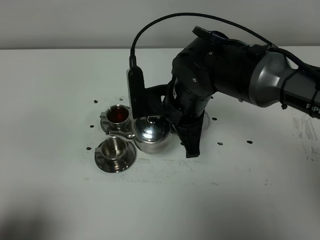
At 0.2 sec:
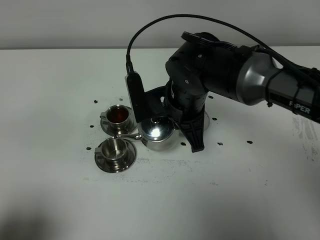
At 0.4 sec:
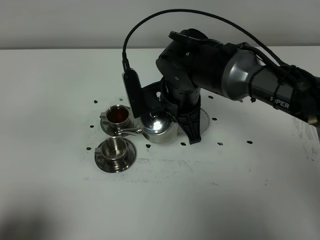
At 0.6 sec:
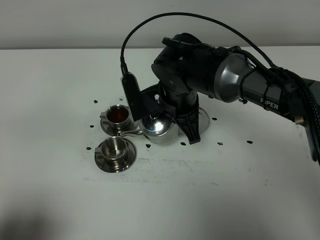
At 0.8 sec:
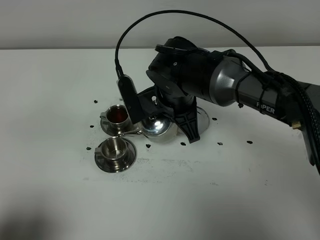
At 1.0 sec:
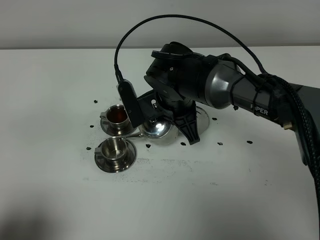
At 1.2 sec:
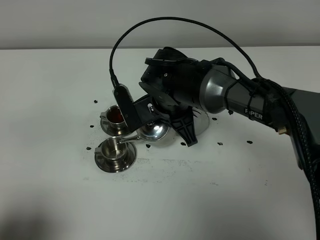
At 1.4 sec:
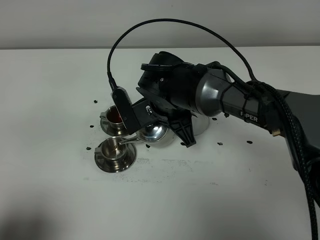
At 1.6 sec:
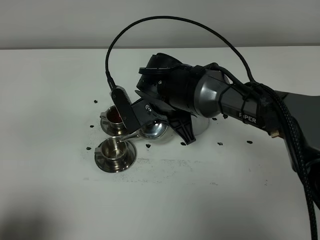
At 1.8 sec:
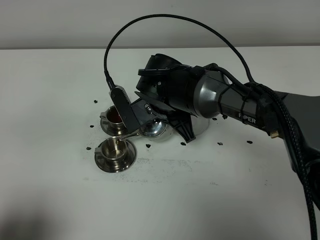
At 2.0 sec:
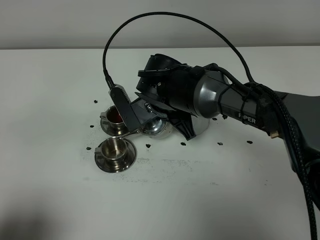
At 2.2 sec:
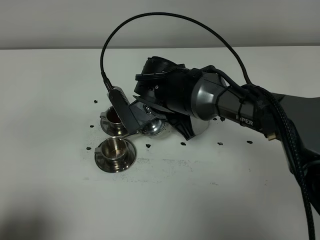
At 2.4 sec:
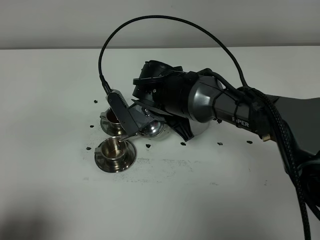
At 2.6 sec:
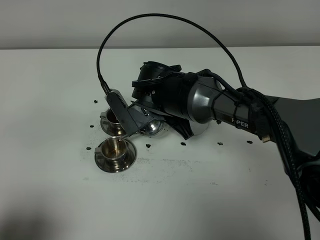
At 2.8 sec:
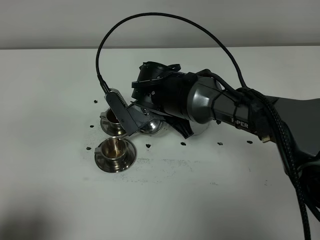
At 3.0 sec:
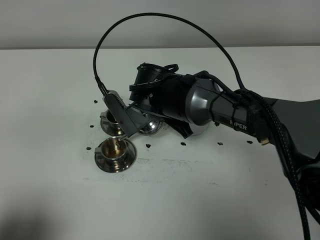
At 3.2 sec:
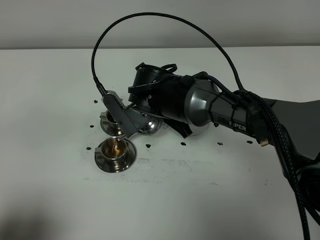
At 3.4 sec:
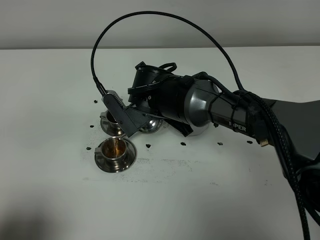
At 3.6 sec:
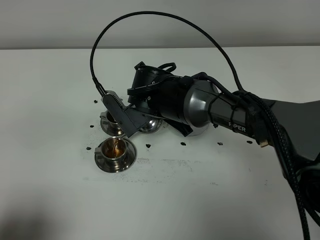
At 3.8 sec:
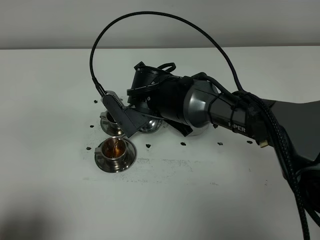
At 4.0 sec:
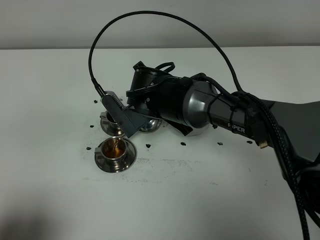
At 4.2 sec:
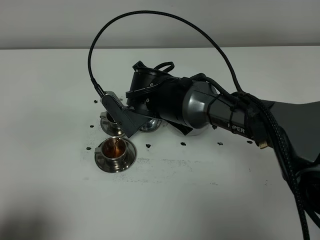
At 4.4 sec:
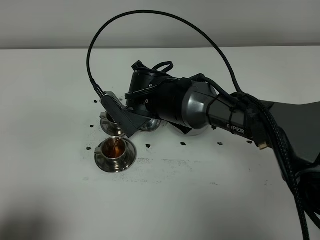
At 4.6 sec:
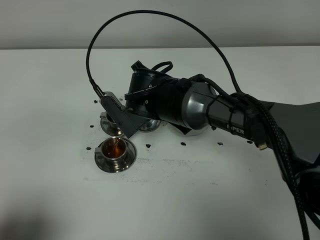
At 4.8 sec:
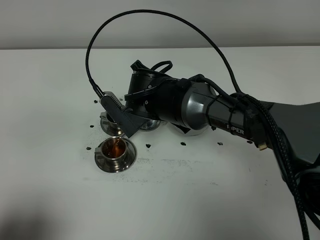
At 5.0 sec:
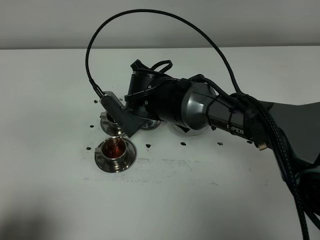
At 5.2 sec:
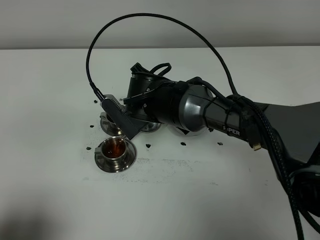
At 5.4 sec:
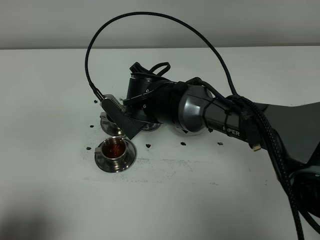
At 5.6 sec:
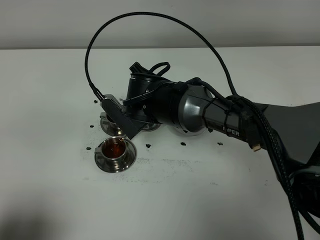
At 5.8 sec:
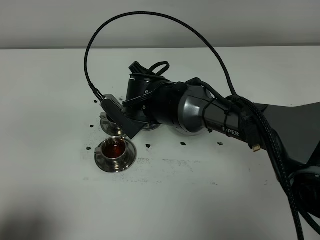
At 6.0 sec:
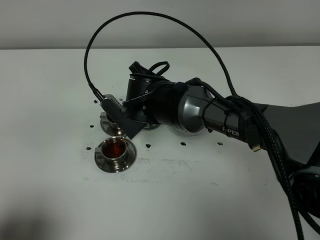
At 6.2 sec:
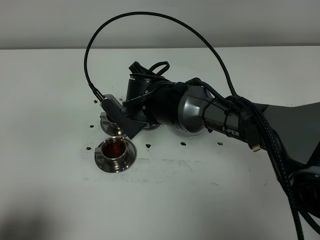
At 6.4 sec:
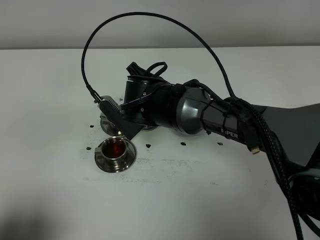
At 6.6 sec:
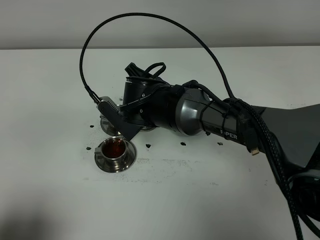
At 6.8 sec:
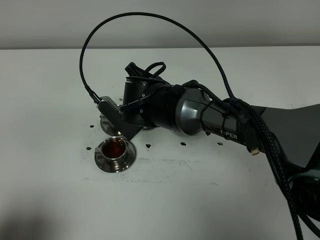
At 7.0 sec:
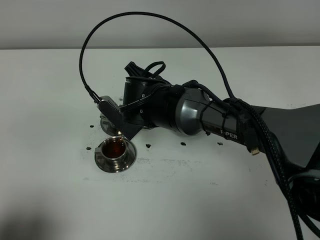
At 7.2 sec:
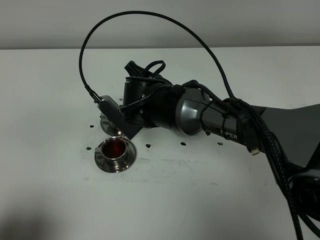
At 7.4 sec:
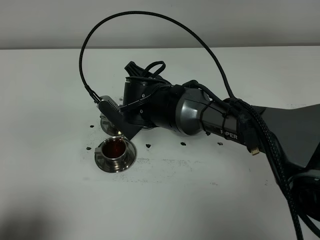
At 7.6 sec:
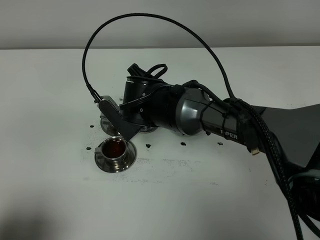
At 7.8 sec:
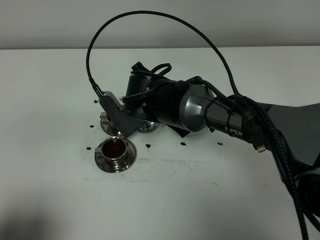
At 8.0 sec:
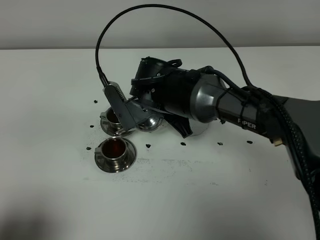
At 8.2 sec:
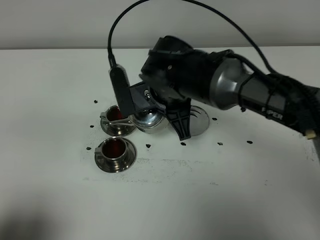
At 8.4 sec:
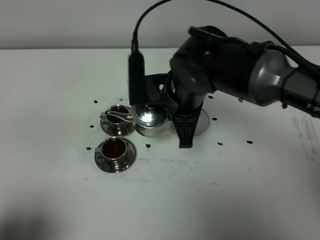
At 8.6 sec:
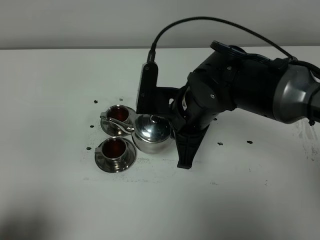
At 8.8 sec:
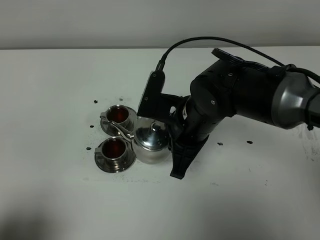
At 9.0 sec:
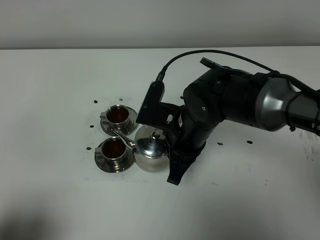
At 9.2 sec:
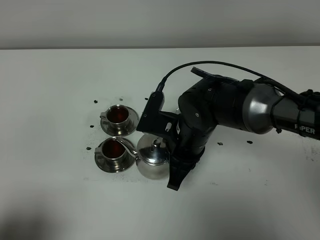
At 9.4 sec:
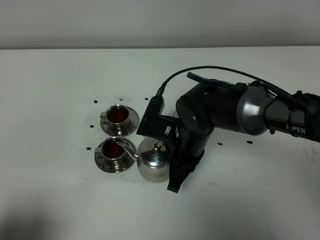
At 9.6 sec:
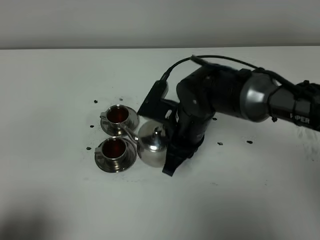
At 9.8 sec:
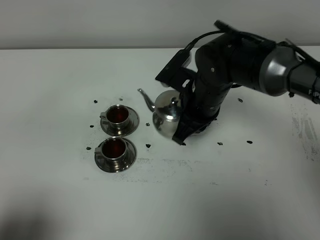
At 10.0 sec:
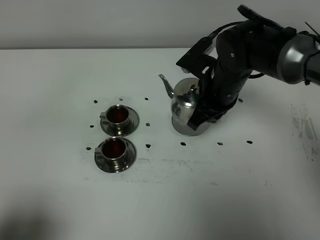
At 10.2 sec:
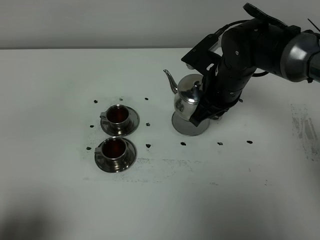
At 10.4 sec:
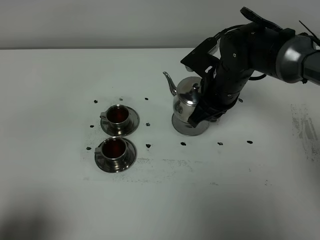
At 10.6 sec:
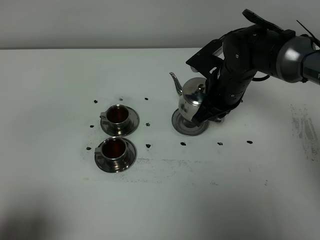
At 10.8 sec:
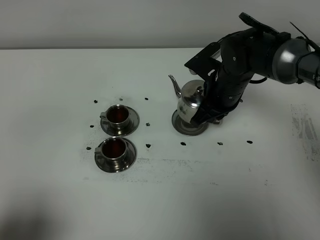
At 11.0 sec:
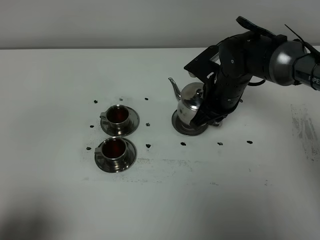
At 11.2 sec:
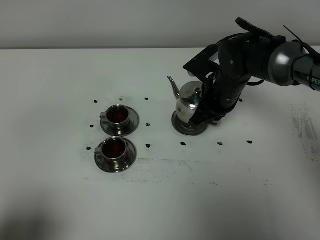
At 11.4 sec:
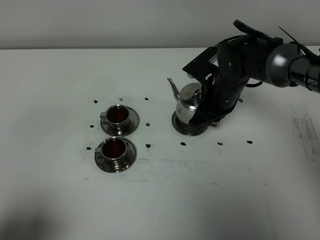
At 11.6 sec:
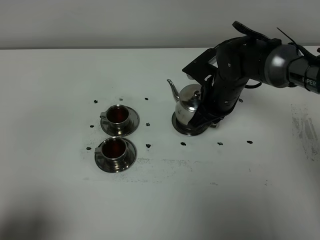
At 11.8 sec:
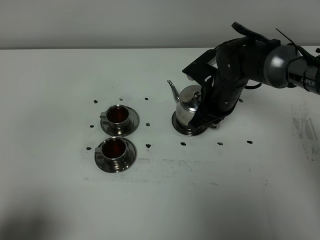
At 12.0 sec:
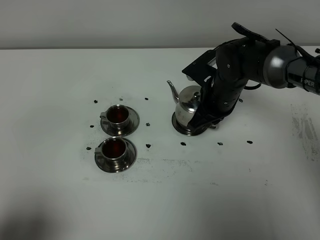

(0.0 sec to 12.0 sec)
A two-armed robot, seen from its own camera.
Task of the whole recording: grasp the stainless steel teapot and pour the tea into the two stainless steel teacups one by one, put the stainless steel teapot back in its original place.
Step, 0.0 sec - 8.0 sec: Pour tea into the teacup with the right gripper.
0.0 sec - 1.6 sec: The right gripper ends up roughly 5 cm from where it was.
1.6 sec - 4.4 sec: There are only small adjustments of the grippers.
4.4 sec - 6.0 sec: Neither gripper changes place.
6.0 sec - 7.6 sec: Both grippers stay about where they are.
7.6 sec - 9.0 sec: The right gripper heads to the right and backward, covering roughly 10 cm.
9.0 sec - 10.4 sec: The right gripper is displaced forward and to the right by roughly 10 cm.
10.4 sec - 12.0 sec: There are only small adjustments of the grippers.

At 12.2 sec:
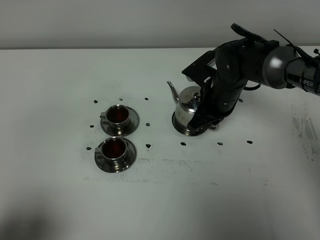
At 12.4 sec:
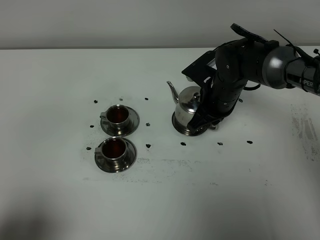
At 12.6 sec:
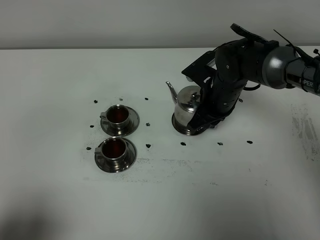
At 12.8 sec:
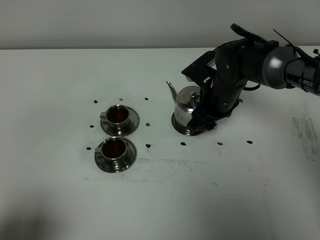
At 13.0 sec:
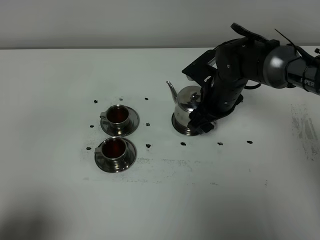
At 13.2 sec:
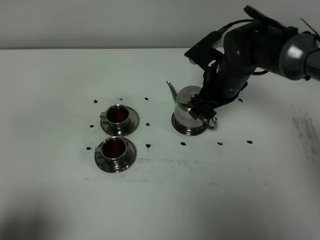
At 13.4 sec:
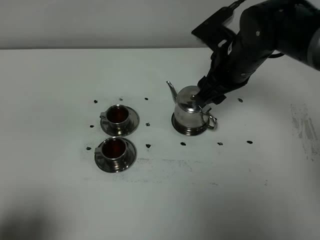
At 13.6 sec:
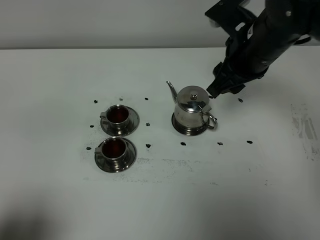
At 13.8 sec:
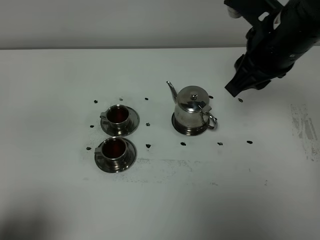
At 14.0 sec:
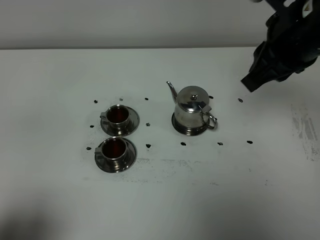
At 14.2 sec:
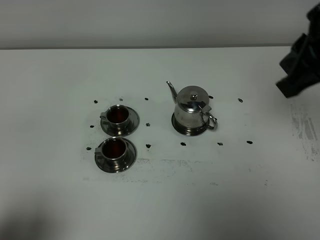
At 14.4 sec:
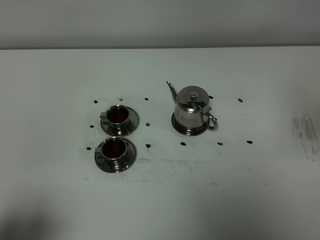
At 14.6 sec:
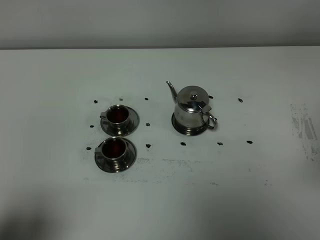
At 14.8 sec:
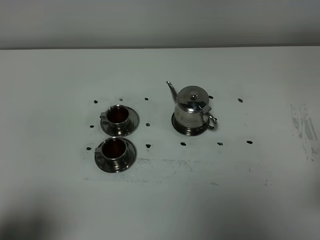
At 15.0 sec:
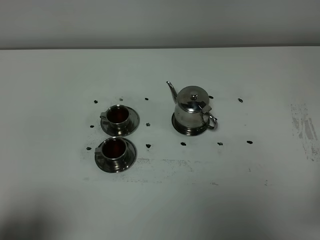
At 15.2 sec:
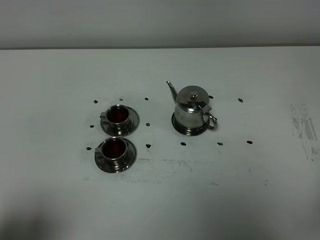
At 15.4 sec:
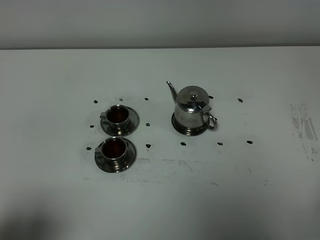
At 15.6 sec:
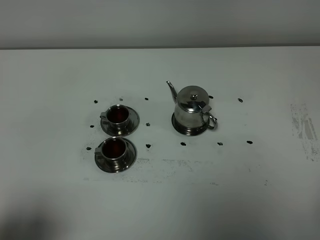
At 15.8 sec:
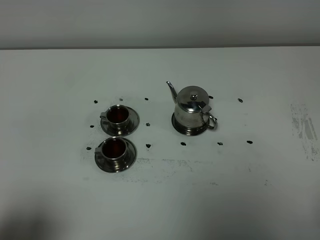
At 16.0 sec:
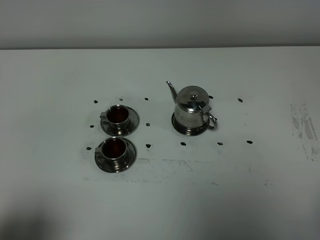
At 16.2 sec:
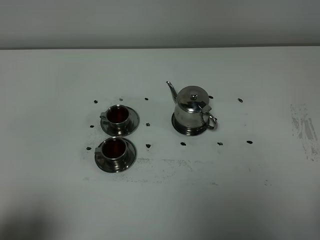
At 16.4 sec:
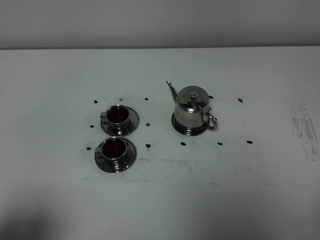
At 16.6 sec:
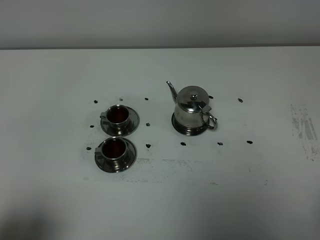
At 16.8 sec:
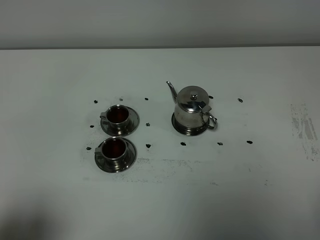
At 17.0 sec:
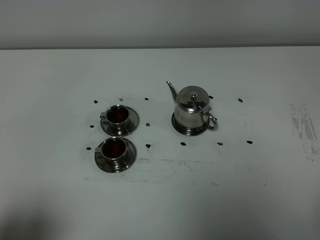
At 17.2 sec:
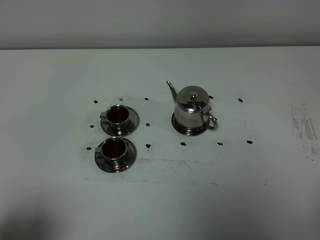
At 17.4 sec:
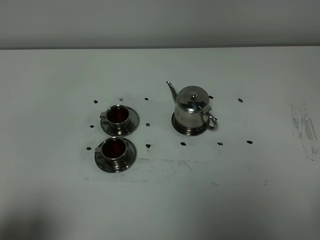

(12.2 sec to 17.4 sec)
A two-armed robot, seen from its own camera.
Task of the whole recording: grasp the stainless steel teapot and pour the tea into the two stainless steel teacups one by one, put the stainless steel teapot back in its original place.
12.2 sec - 14.0 sec: The right gripper is displaced upward and backward by approximately 25 cm, and opens, then closes once more.
14.0 sec - 15.6 sec: The right gripper shifts roughly 30 cm backward, to the right and downward.
